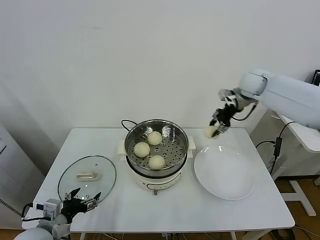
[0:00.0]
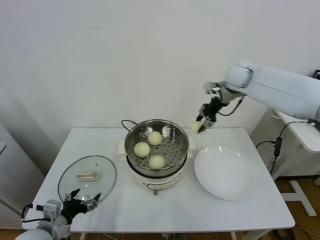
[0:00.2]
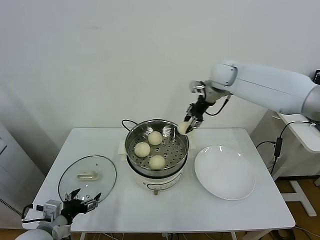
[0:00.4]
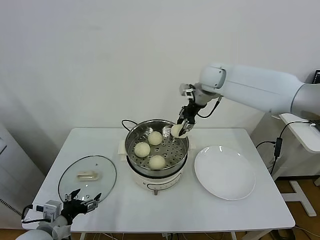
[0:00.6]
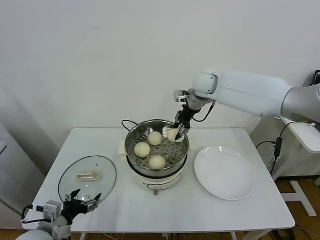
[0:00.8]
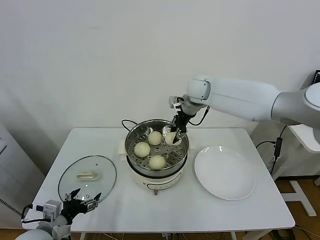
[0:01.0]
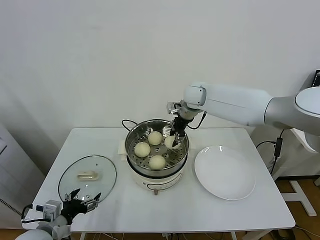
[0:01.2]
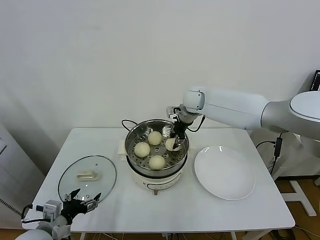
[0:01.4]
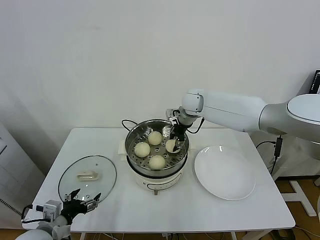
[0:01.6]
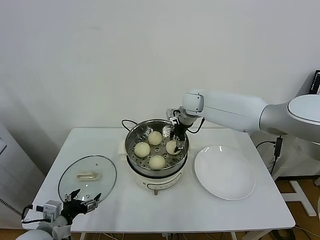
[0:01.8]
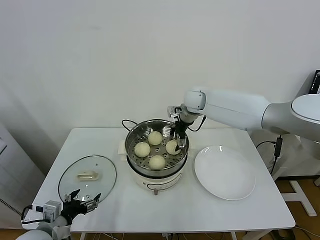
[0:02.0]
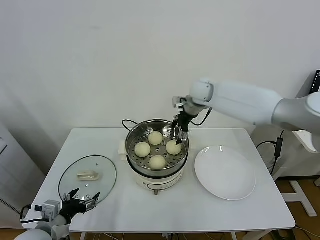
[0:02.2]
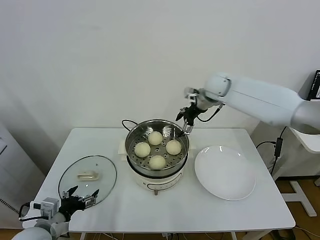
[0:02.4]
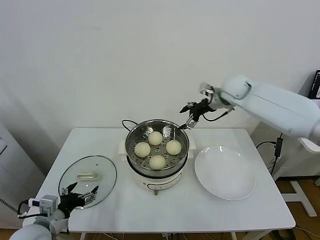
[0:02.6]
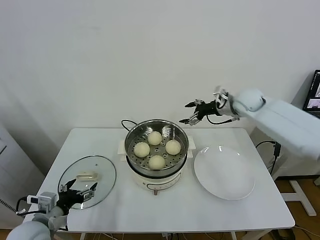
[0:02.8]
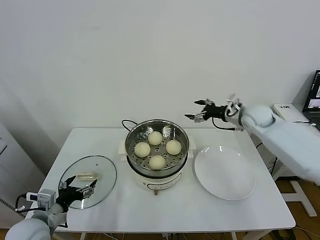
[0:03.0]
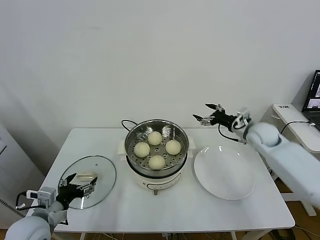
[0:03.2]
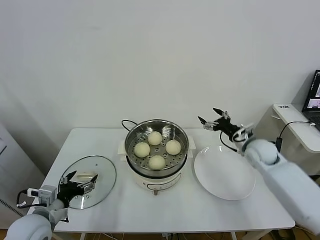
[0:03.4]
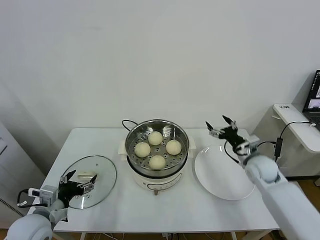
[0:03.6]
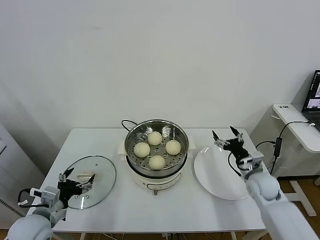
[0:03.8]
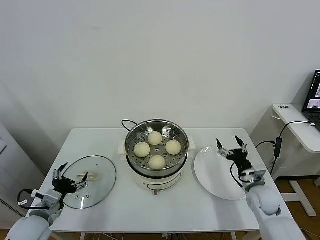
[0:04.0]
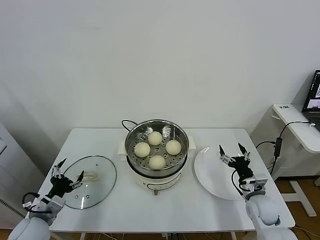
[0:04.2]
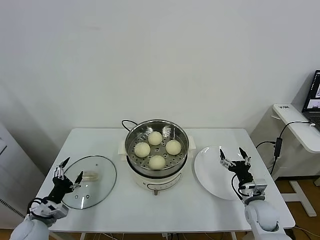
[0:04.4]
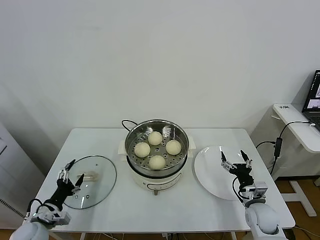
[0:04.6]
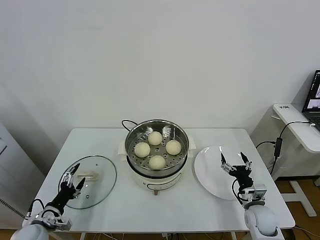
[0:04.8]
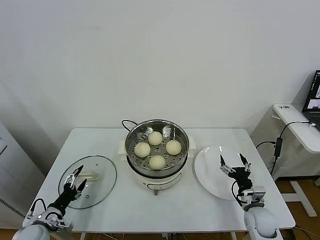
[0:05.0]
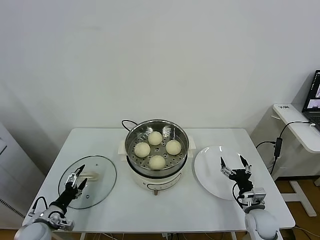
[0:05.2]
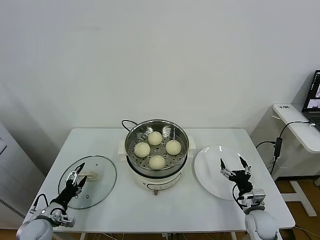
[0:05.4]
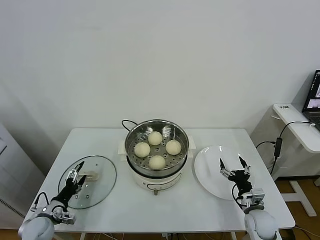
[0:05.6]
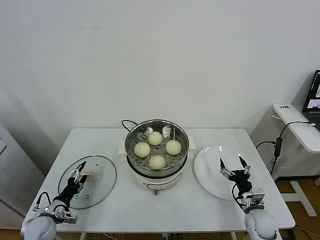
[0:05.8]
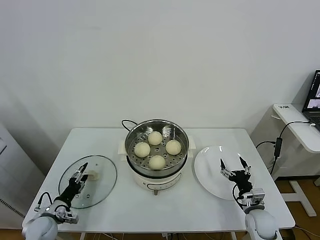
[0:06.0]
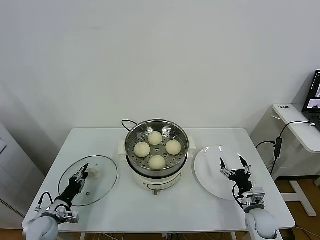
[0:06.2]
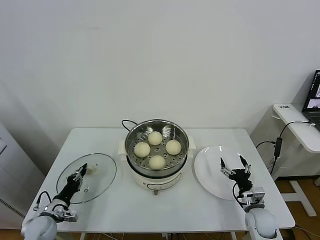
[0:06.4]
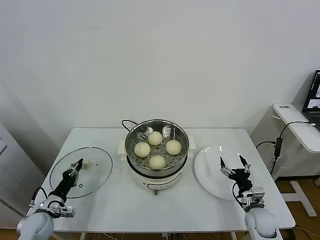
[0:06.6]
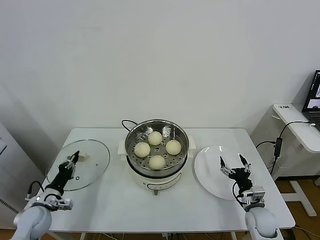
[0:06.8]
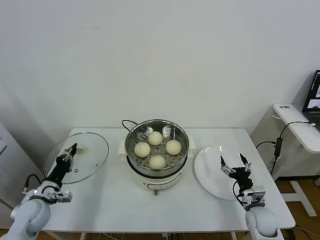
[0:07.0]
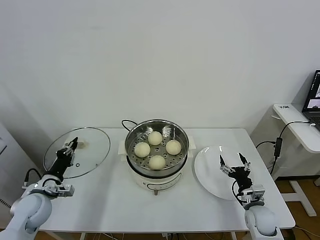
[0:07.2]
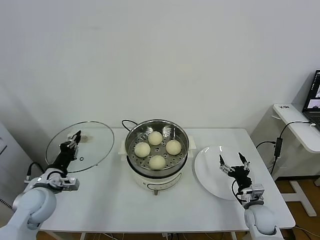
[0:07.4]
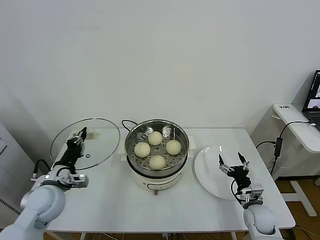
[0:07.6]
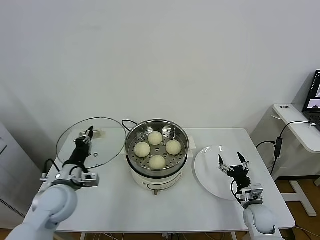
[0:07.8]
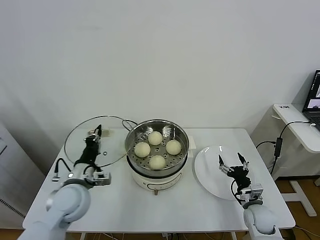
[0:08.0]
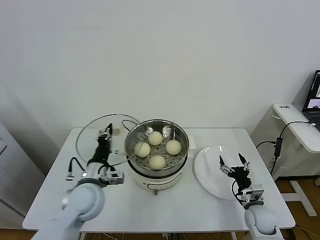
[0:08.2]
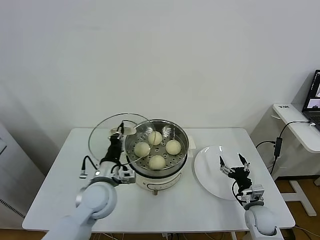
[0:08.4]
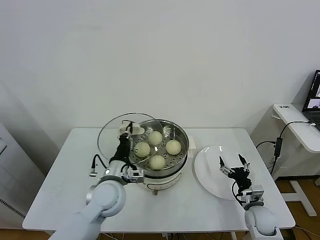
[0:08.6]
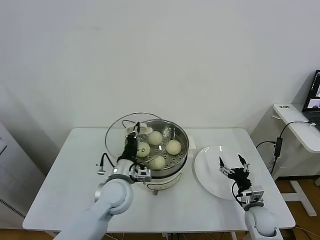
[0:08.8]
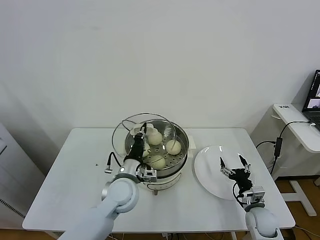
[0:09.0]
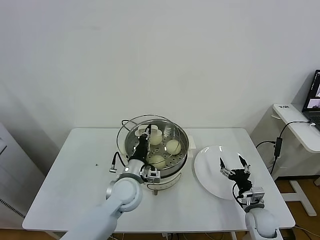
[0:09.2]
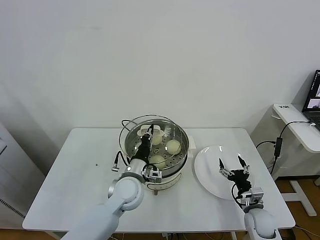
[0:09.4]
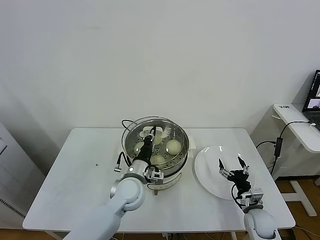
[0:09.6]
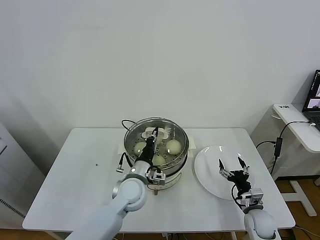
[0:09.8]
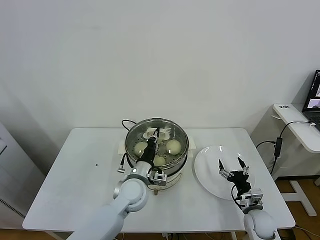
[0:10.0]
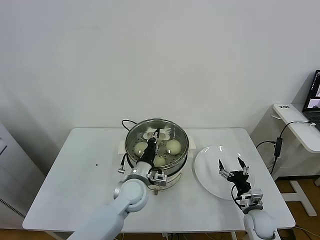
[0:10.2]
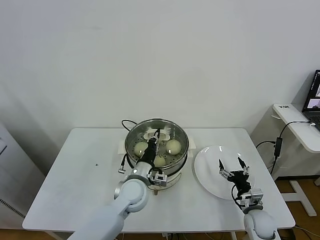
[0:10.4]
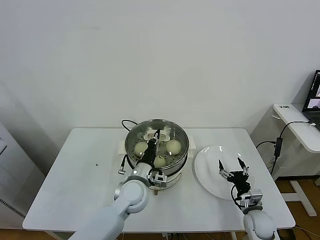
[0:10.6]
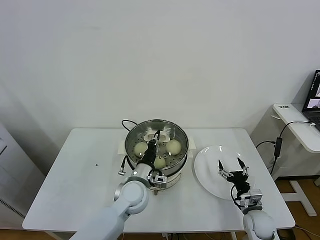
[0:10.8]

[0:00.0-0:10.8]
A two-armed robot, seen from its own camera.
Task of the whole recording: take steamed baozi put them in steamer.
Step, 0.0 to 2.0 s: Place the baozi on the steamer with right gripper.
Step, 2.2 to 6.6 s: Grasp the pot lid with left gripper.
0.0 to 1.6 s: The right gripper goes roughly 20 cm to the left and downward.
1.6 to 3.0 s: The right gripper heads to the right, covering roughly 20 cm, and opens.
3.0 to 4.6 s: The right gripper travels downward and backward by approximately 35 cm; the left gripper shifts about 10 cm downward and to the left.
4.6 to 6.2 s: The left gripper shifts approximately 5 cm downward, and closes up.
6.2 to 7.8 s: The left gripper is displaced upward and to the right by some 20 cm, and closes up.
7.8 to 9.2 s: The left gripper travels to the right by some 20 cm.
9.2 to 10.8 s: The grippers move only a little.

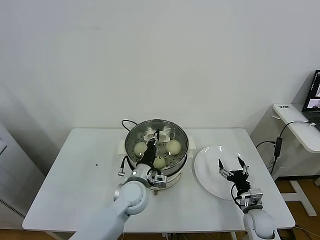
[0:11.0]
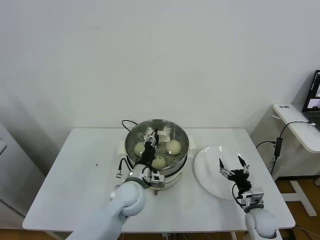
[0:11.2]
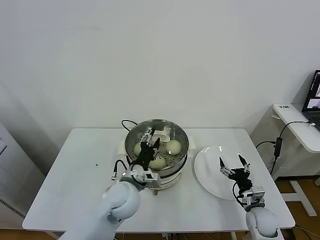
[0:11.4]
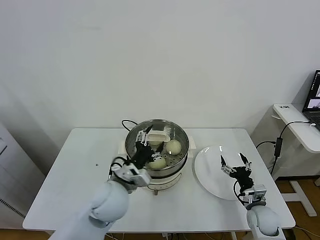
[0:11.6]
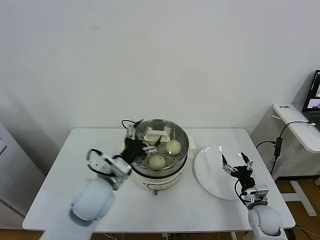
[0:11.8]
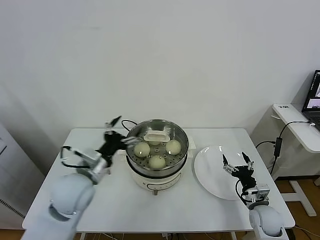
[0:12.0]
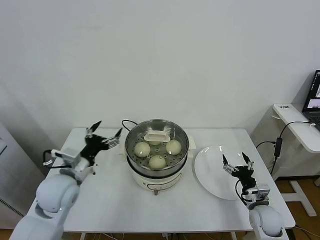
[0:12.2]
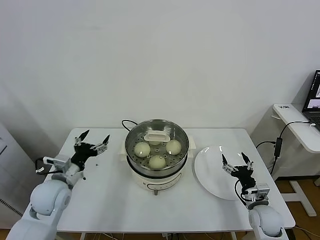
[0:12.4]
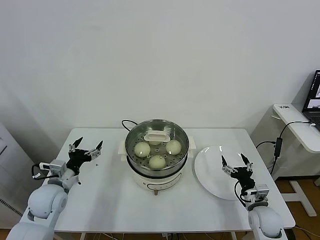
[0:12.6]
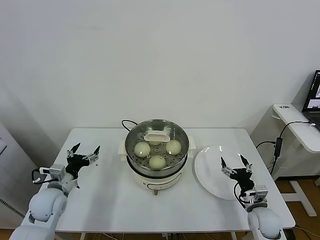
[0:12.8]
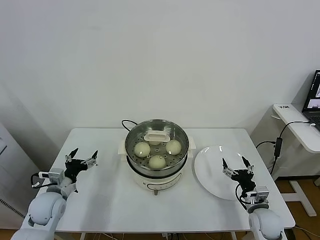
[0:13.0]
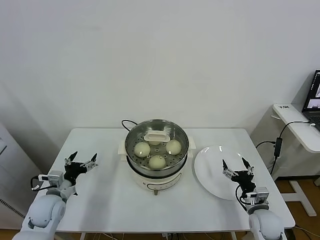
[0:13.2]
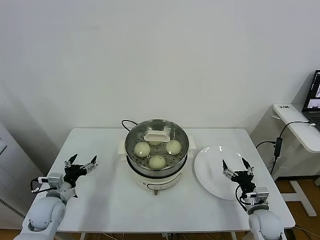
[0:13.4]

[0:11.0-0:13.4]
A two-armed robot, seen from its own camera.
Task of the whole recording: take steamed baozi put them in steamer.
11.0 to 12.2 s: The left gripper travels to the left and upward by approximately 20 cm, and opens up.
12.2 to 13.4 s: The left gripper heads downward and to the left, covering roughly 15 cm.

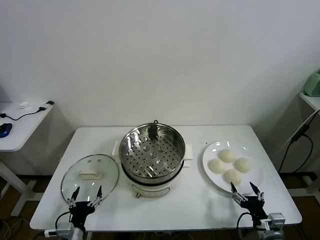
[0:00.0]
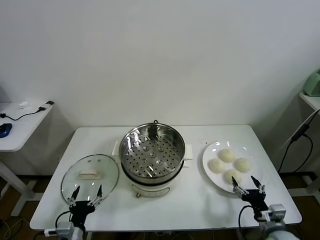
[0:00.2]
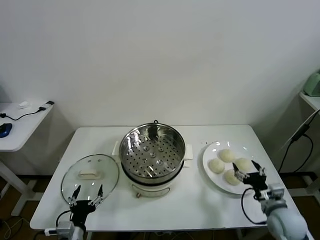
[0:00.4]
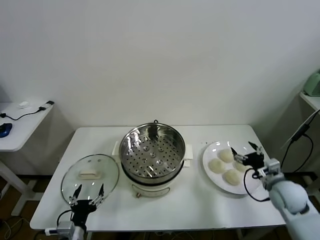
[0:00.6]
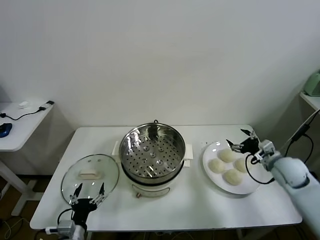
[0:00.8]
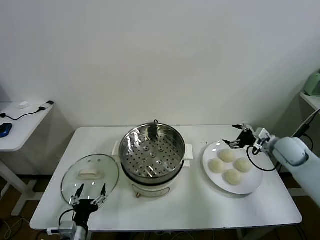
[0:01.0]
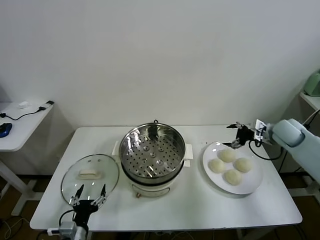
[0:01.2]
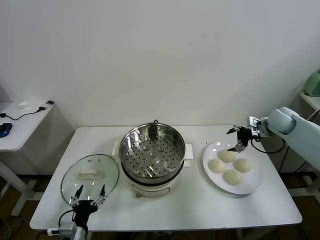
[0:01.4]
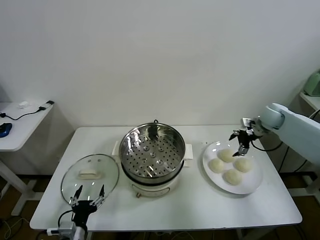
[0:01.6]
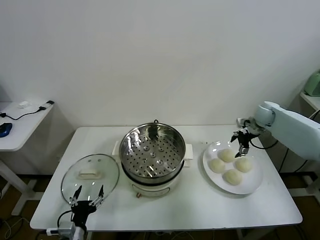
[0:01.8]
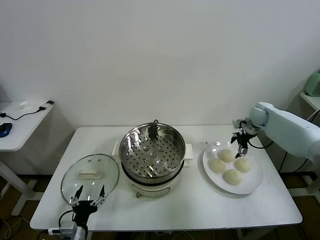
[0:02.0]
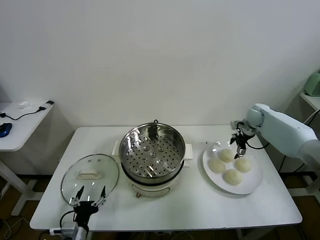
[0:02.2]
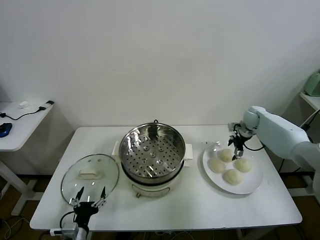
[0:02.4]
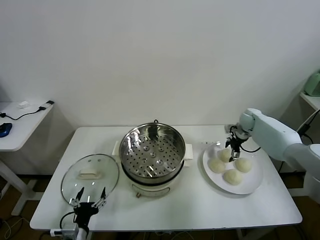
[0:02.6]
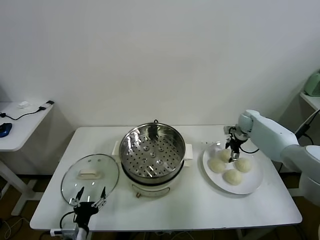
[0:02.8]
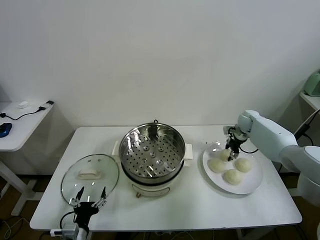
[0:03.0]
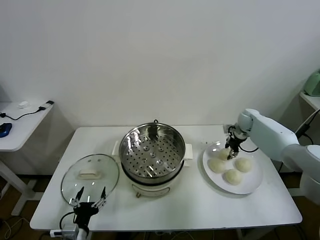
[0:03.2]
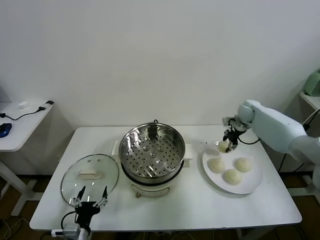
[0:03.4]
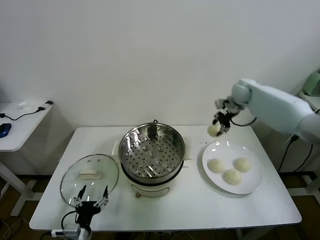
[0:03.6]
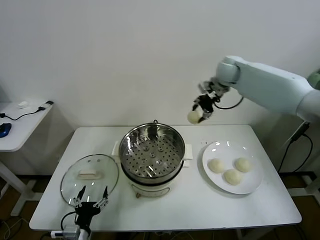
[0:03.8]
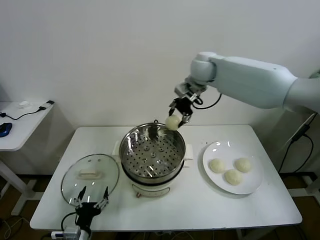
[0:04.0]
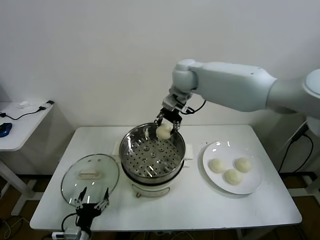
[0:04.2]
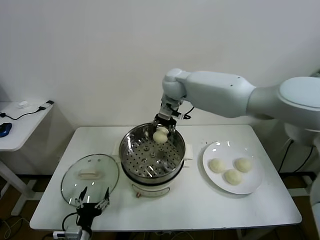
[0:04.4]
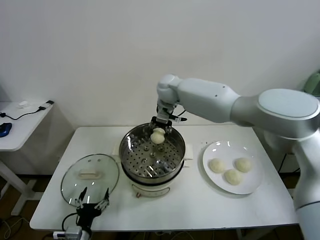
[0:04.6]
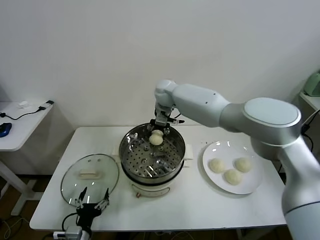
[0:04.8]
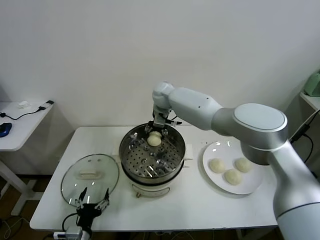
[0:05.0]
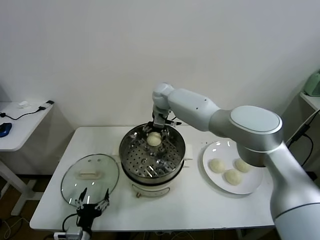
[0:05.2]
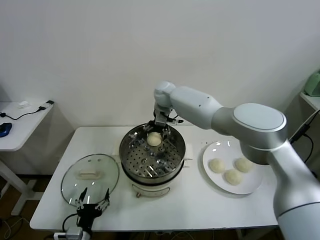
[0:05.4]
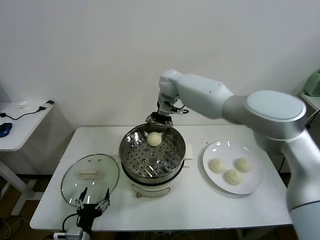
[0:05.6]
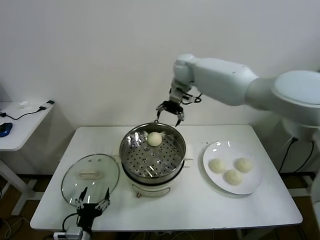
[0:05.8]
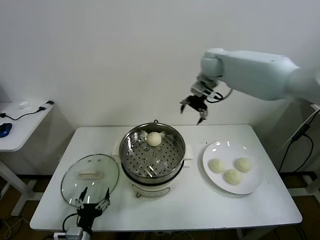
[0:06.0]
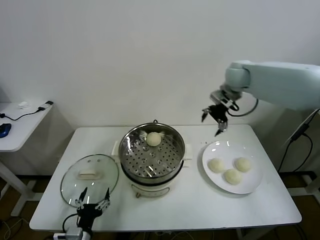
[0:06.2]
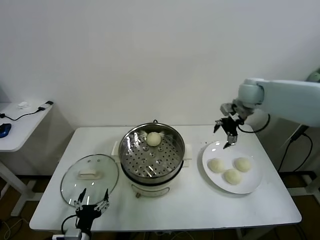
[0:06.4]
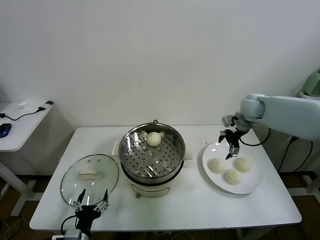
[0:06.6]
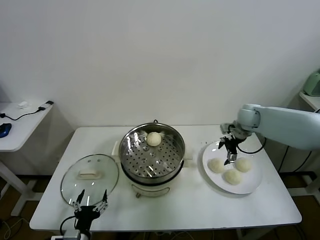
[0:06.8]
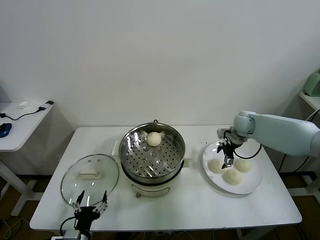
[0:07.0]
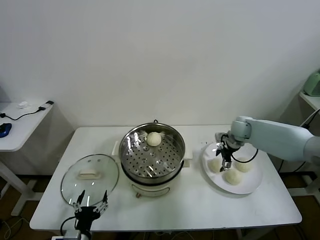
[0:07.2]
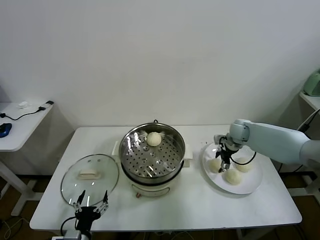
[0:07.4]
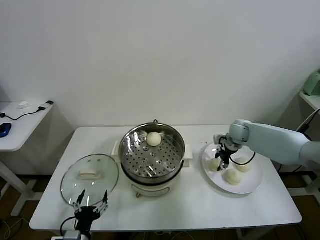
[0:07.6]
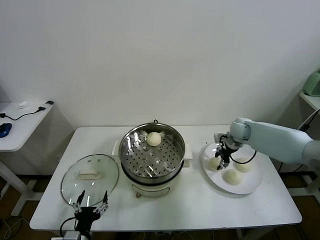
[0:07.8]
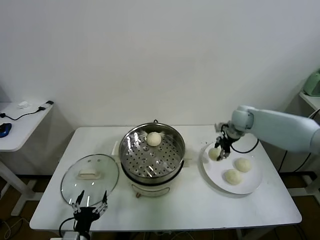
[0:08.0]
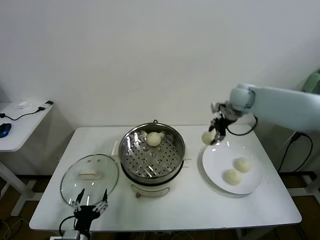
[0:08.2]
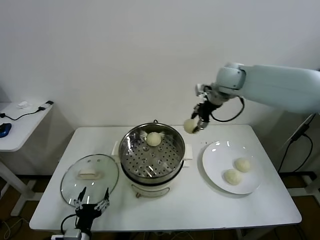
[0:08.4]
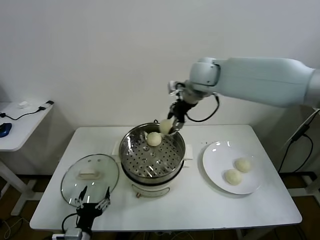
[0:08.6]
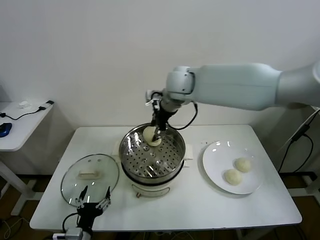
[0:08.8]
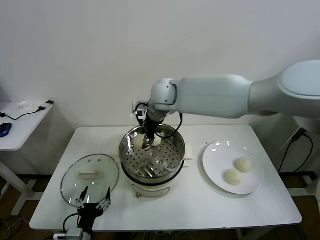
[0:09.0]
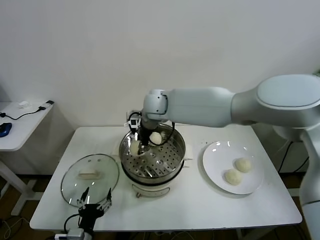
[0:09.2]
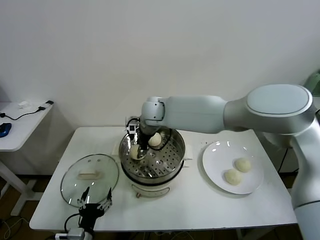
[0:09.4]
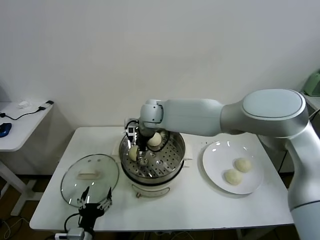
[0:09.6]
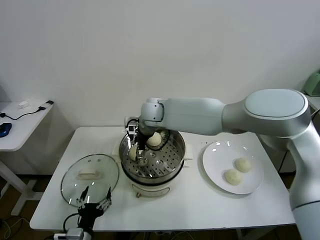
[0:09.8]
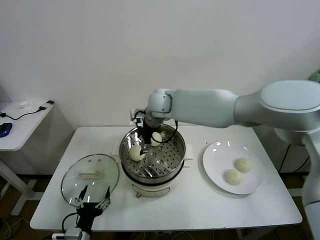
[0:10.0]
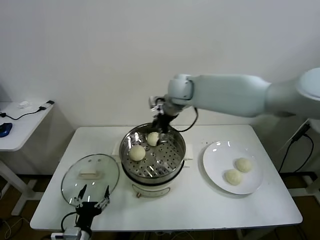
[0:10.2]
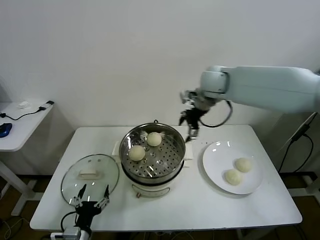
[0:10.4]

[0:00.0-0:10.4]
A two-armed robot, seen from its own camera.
Task of the whole recording: take steamed baozi put them in steamer.
Step, 0.0 to 3.0 s: Grasp the baozi in the plate with right gripper.
Step, 3.2 to 5.2 s: Place the baozi on the steamer with right gripper.
Step, 5.4 to 7.6 s: Grasp the baozi in the plate with right gripper.
Step, 7.8 to 9.6 s: Place the baozi on the steamer with right gripper.
1.4 to 3.0 s: The right gripper goes approximately 10 cm downward and forward, and closes its fingers.
3.0 to 4.4 s: The right gripper goes some 40 cm to the left and upward.
4.4 to 6.0 s: The right gripper shifts some 20 cm to the right, and opens.
6.0 to 7.4 s: The right gripper moves downward and to the right, roughly 30 cm, and closes up.
7.4 to 9.0 s: The right gripper is displaced to the left and upward by about 40 cm, and closes.
9.0 to 10.4 s: The right gripper is displaced to the right by roughly 20 cm, and opens.
